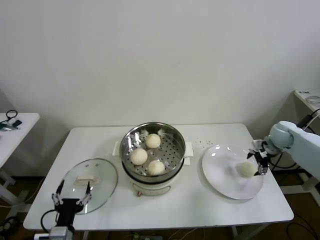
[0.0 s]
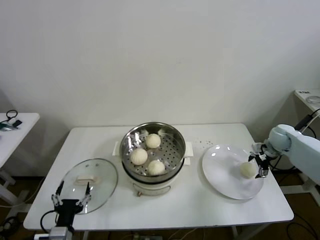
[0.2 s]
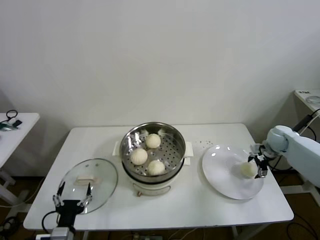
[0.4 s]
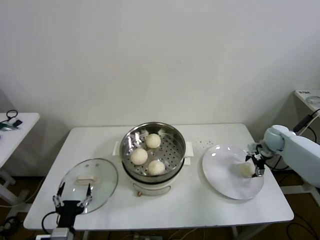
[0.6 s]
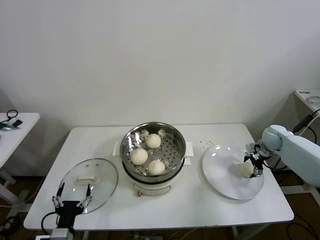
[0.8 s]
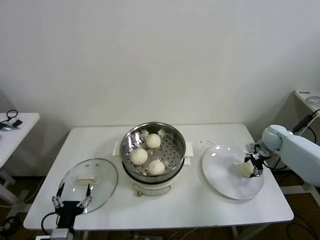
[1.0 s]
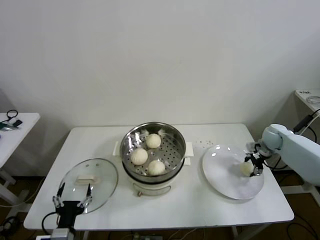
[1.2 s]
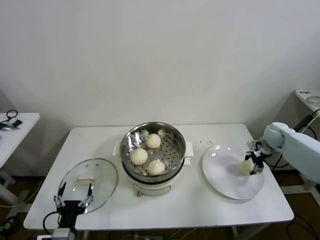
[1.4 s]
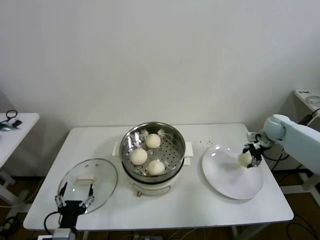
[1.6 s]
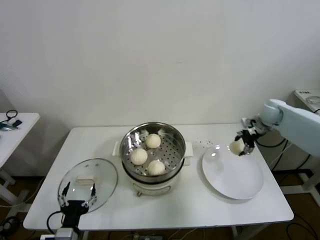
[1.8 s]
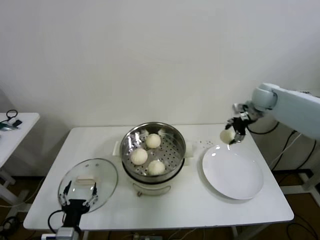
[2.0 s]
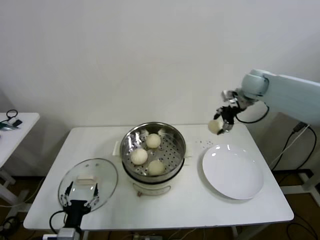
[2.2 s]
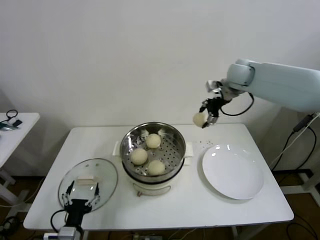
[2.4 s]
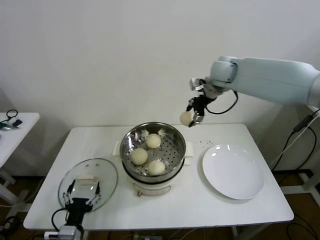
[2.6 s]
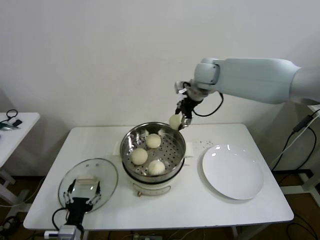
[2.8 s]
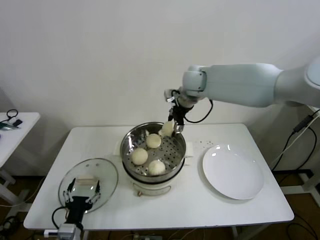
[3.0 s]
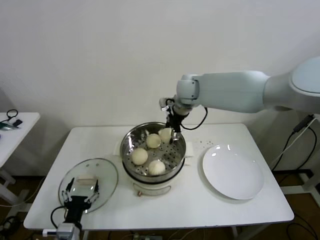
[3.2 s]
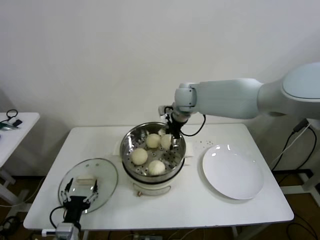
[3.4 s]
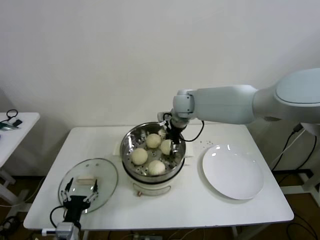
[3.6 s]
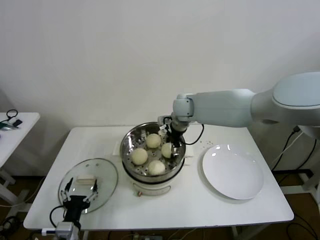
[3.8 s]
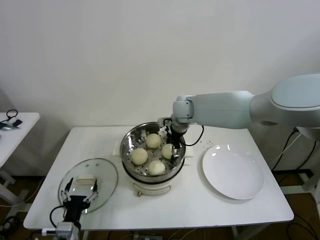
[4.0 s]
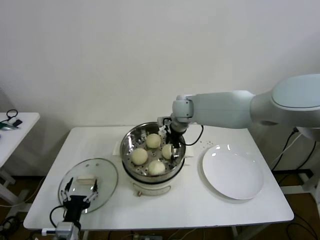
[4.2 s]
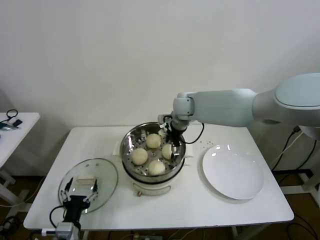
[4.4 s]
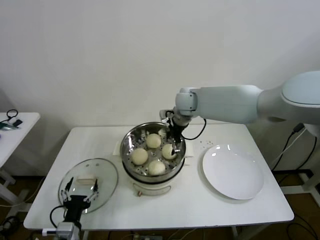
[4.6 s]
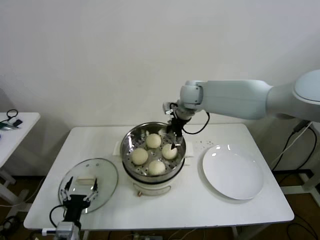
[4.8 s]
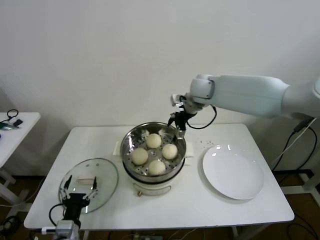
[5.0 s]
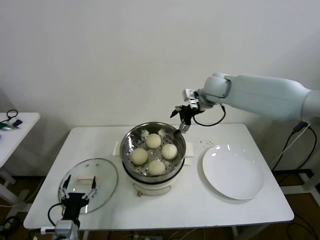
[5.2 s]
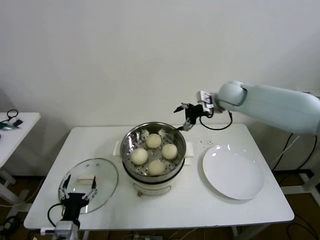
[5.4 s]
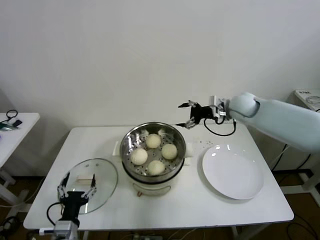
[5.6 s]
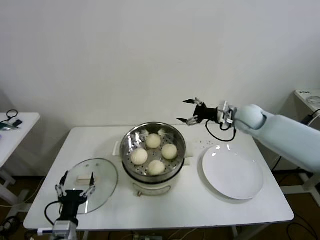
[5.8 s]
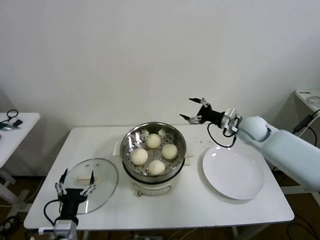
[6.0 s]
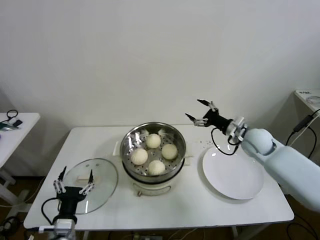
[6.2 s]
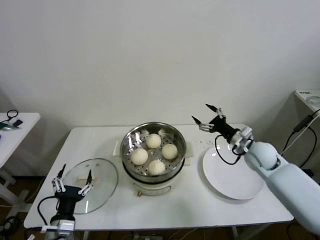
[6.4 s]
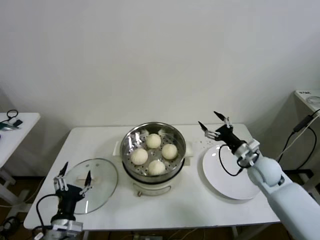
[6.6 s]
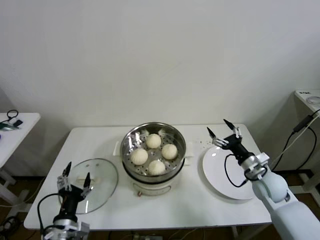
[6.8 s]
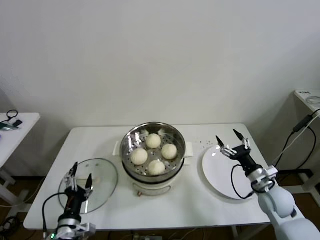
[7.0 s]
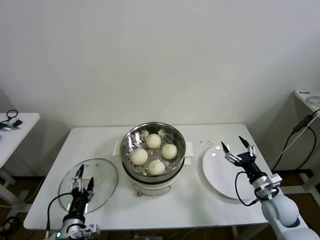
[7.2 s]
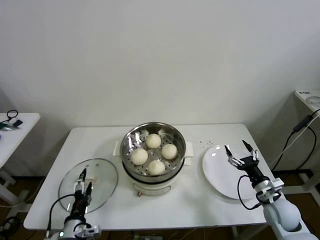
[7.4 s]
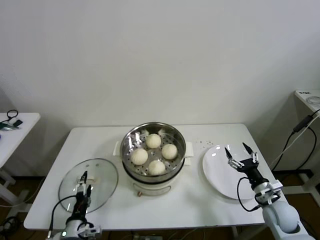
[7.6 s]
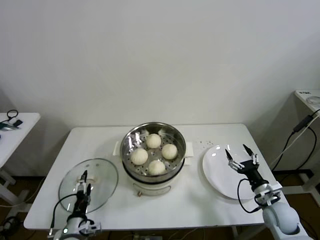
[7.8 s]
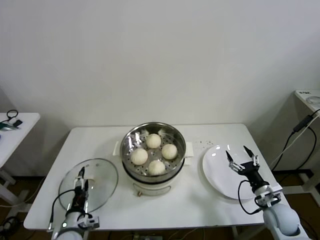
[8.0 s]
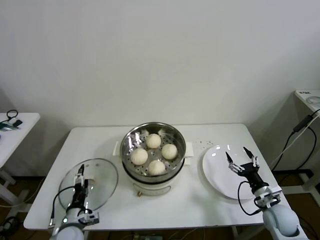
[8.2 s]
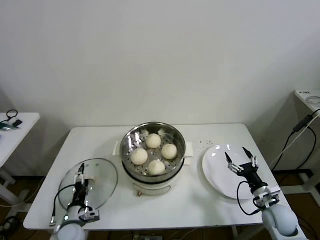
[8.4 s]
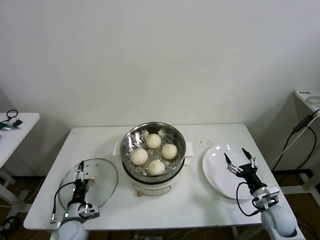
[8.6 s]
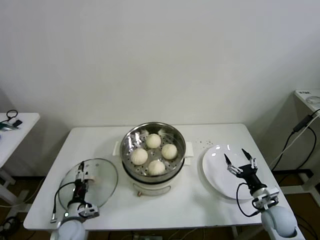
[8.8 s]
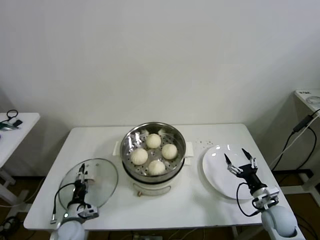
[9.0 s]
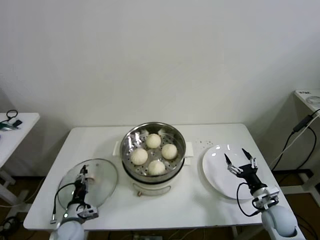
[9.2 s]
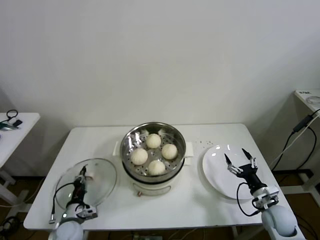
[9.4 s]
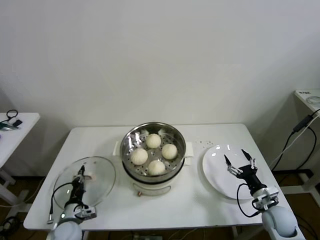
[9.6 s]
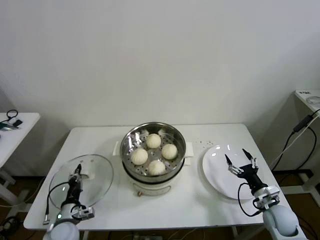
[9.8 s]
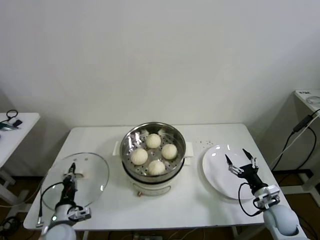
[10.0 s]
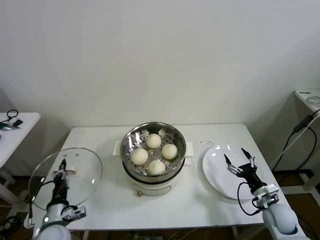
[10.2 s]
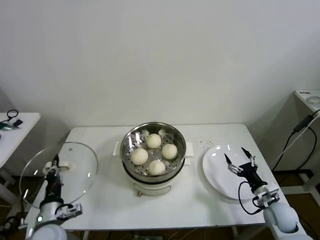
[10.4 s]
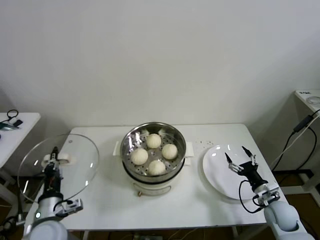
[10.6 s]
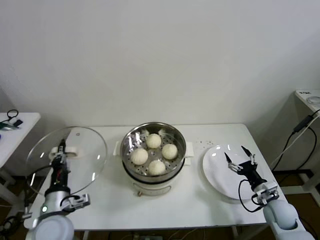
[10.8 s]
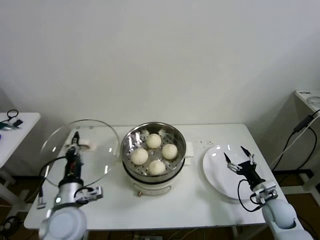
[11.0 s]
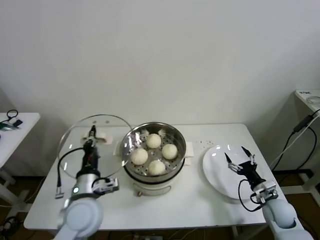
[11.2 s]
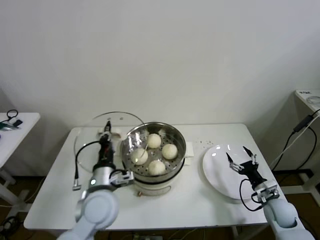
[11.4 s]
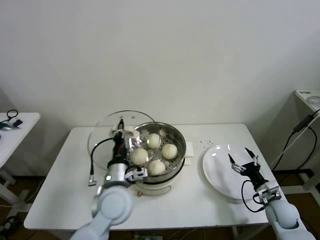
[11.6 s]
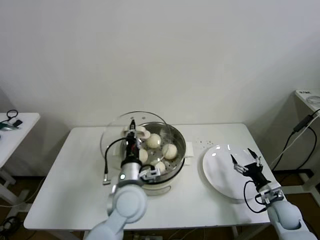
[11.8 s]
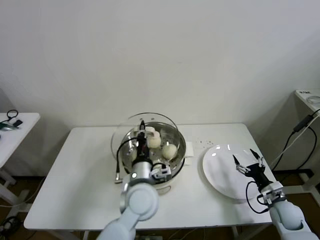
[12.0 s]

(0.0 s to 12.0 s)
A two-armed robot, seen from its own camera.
Step, 1.2 s - 4.2 s: Place the baozi on the steamer with right gripper.
Step, 4.4 s - 9.4 s: Grasp the pot lid with left gripper.
0.0 s - 1.6 s: The right gripper closes up.
1.6 s - 3.0 s: The right gripper shifts roughly 40 cm to the left and upward.
3.0 s - 4.4 s: The right gripper shifts roughly 10 cm downward, and opens up.
4.4 s - 6.0 s: The right gripper travels to the right by some 25 cm.
6.0 s - 7.6 s: The right gripper is displaced backward and downward by approximately 30 cm. Meanwhile the left gripper moves downward, roughly 5 cm.
7.6 s - 9.0 s: The left gripper goes roughly 10 cm forward and downward.
9.0 s - 10.4 s: The left gripper heads upward, covering roughly 10 cm, and closes its fingers.
10.4 s - 12.0 s: The left gripper shifts roughly 25 cm to the right.

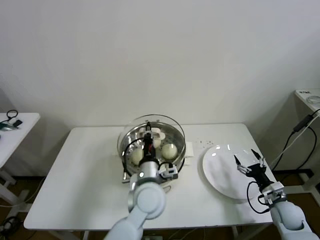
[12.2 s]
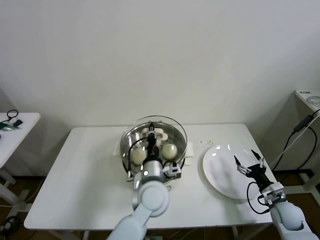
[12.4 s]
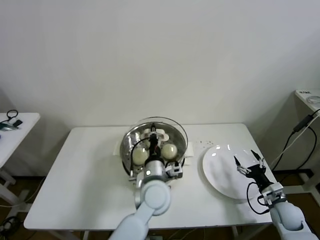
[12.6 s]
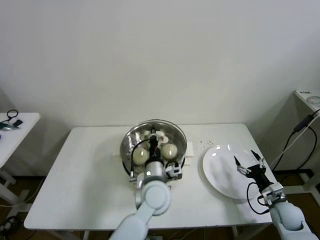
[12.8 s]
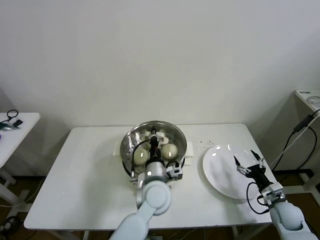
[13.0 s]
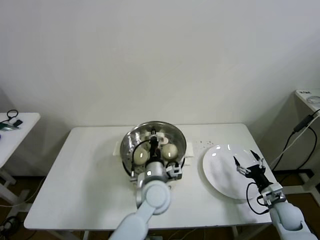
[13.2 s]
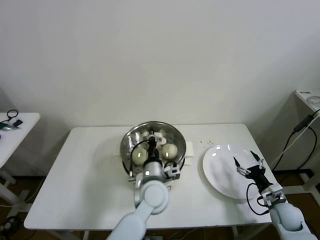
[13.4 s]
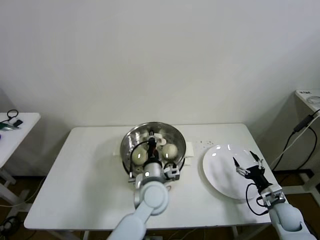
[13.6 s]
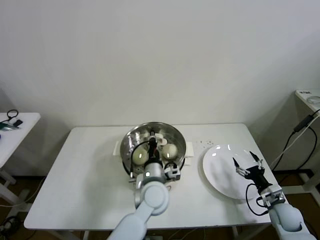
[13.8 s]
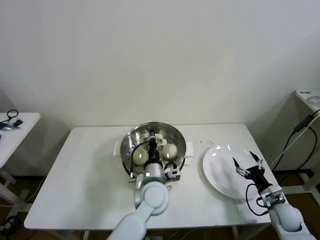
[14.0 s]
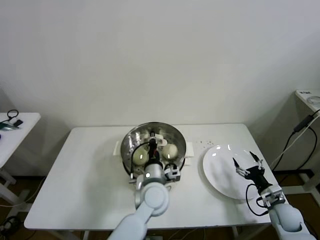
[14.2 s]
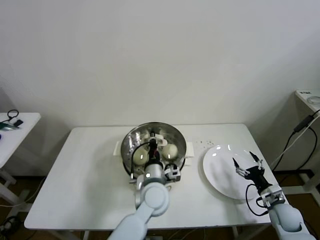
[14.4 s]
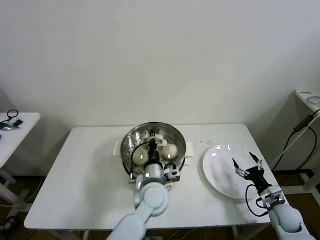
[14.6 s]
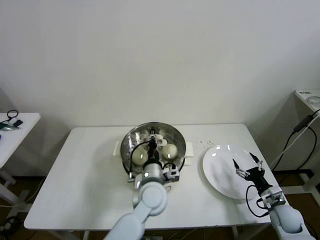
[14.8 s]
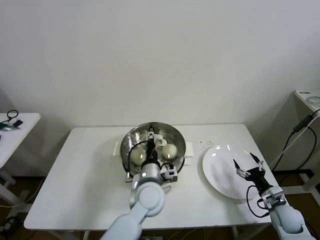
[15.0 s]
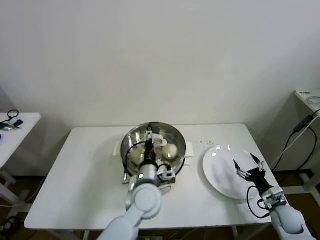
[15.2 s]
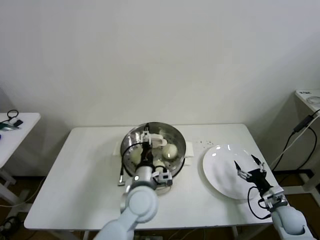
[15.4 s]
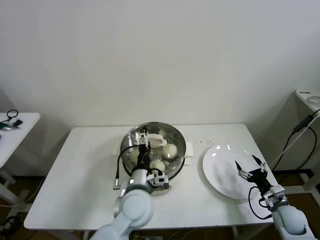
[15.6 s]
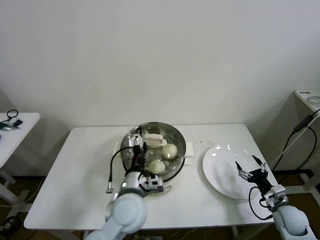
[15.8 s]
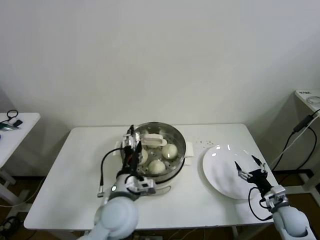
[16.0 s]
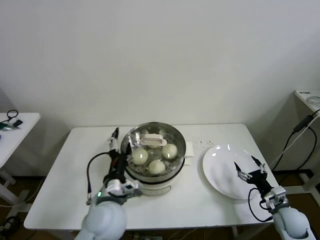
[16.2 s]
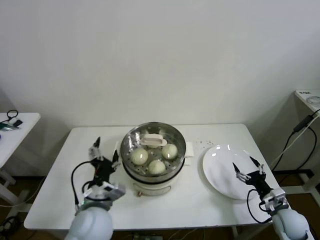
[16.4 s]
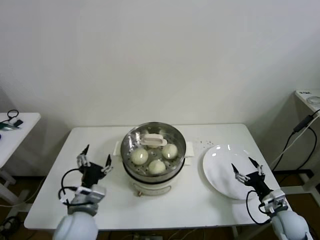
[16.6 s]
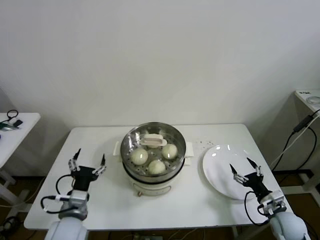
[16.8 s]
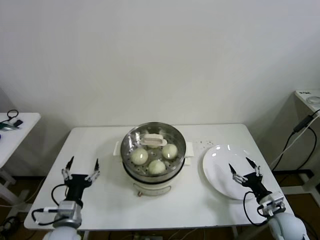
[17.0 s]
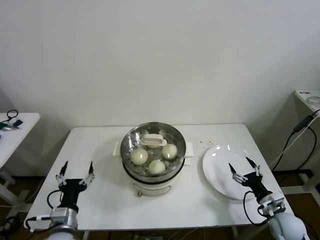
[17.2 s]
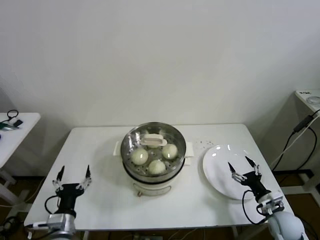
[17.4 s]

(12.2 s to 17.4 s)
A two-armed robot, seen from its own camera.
Step, 12.2 s - 14.6 s: Place the pot lid on the steamer with left gripper.
12.2 s - 14.0 s: The grippers move only a little.
14.0 s - 15.6 s: The left gripper ends up some 5 cm from where it was, and opens.
15.6 s - 17.4 s: The left gripper is displaced to the left and backward by about 25 cm.
